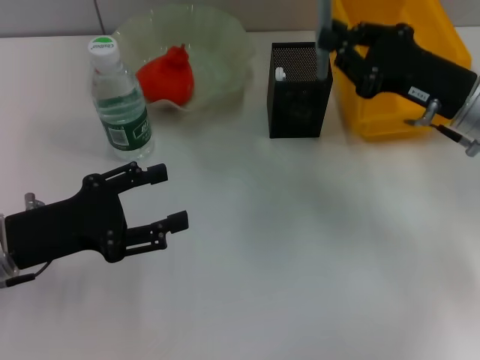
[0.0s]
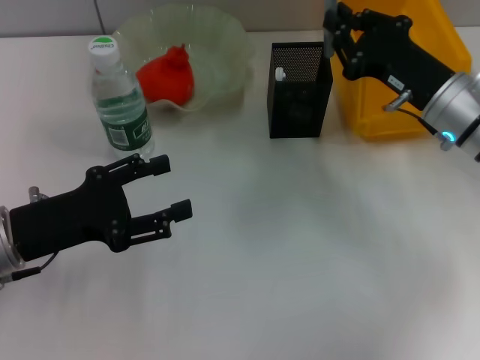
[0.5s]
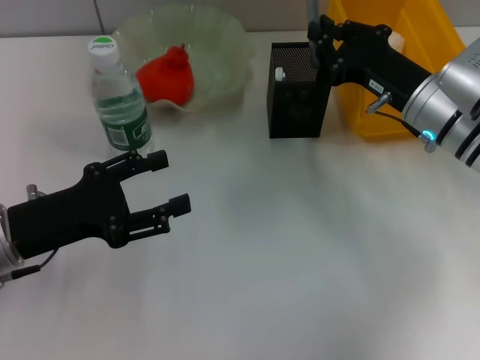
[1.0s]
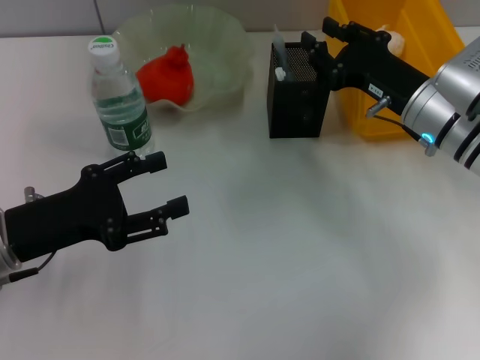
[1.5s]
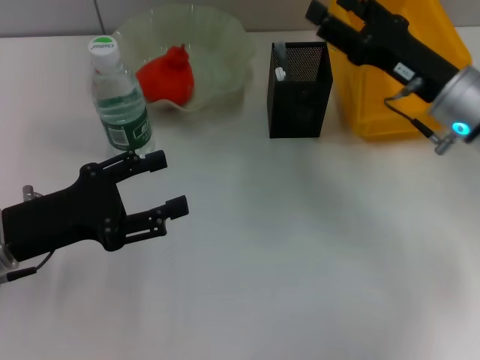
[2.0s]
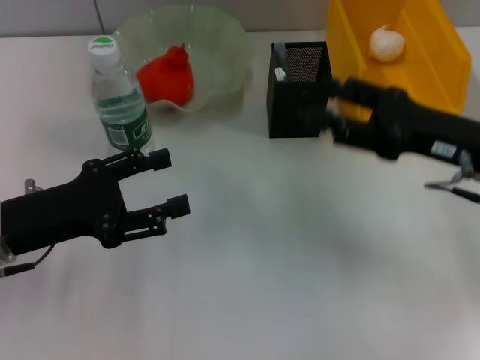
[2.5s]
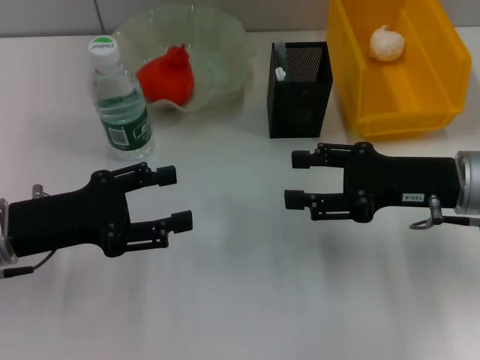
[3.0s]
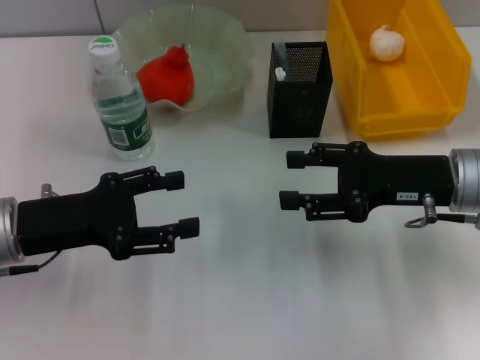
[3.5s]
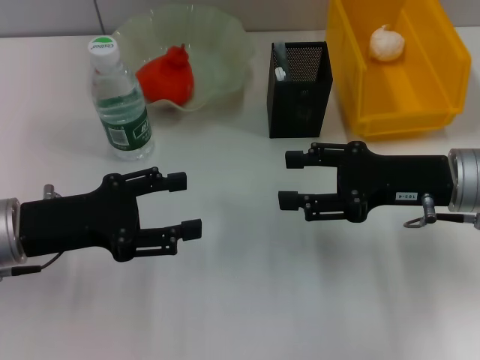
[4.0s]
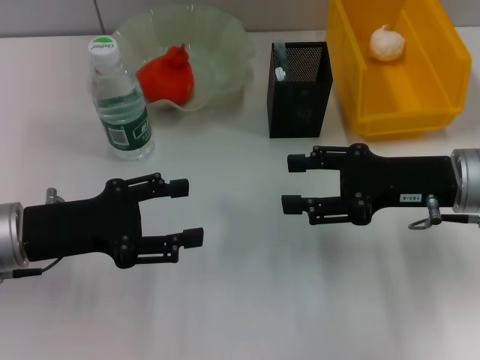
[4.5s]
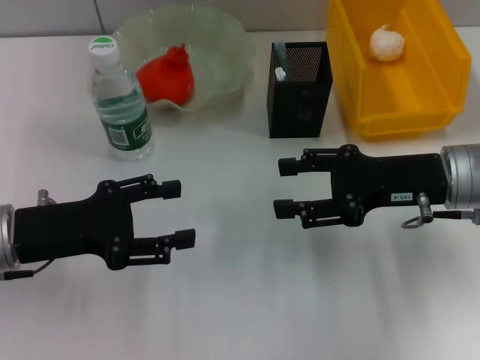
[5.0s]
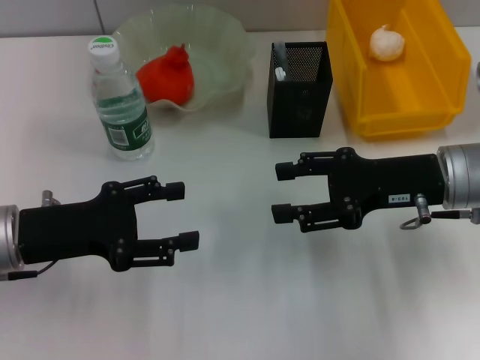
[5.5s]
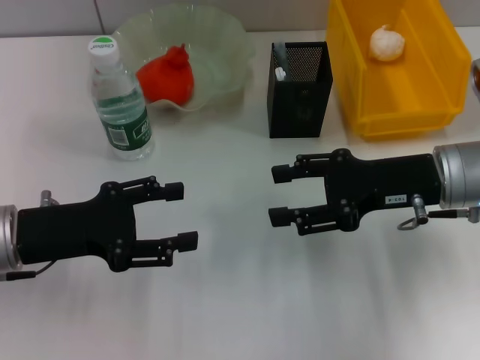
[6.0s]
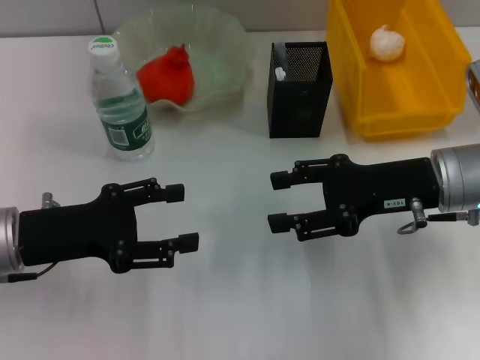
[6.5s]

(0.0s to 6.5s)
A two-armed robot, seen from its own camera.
0.0s - 2.0s: The right gripper opens.
4.5s - 6.5s: There are only small adjustments of the grippers.

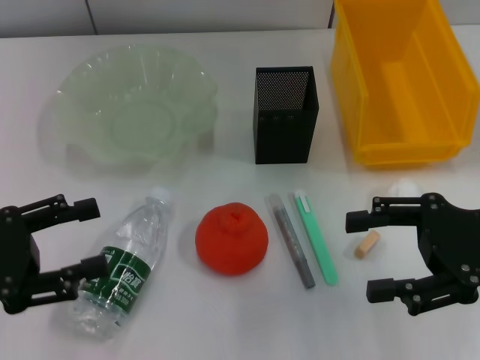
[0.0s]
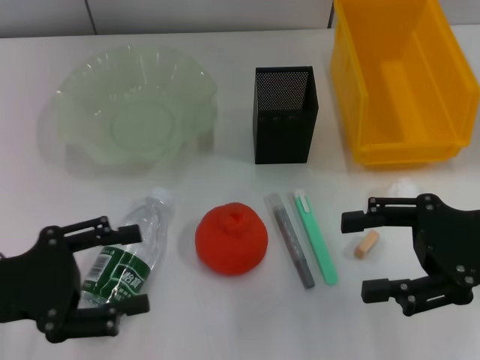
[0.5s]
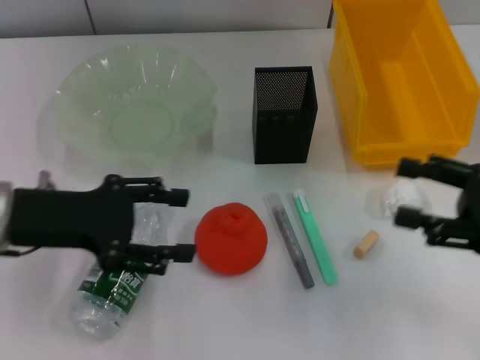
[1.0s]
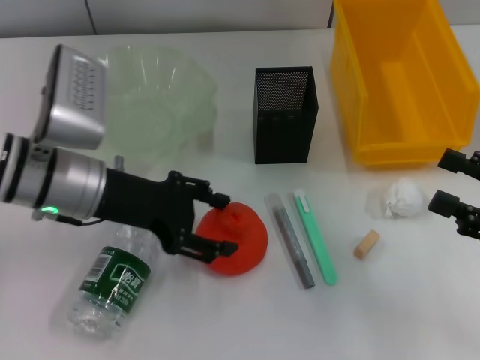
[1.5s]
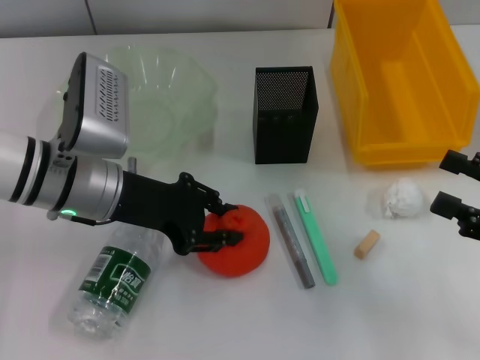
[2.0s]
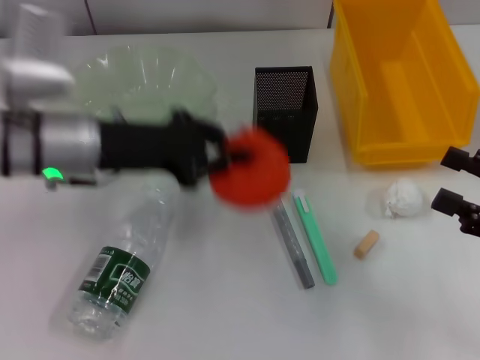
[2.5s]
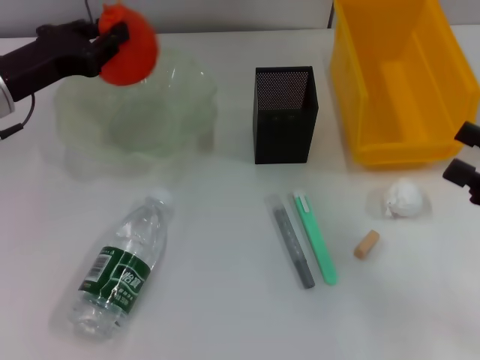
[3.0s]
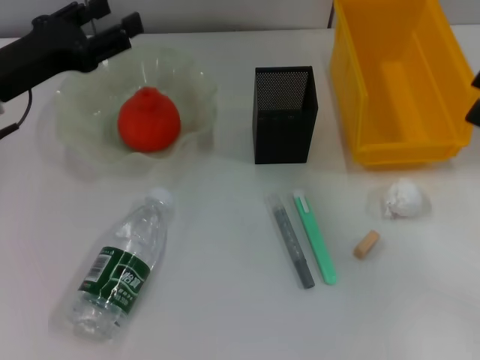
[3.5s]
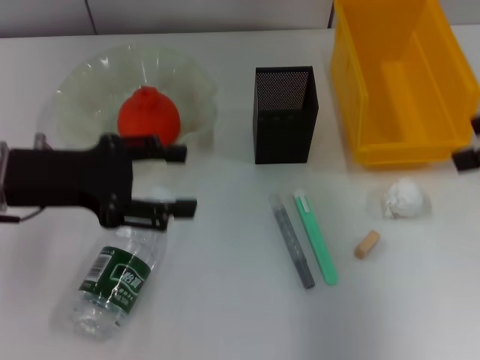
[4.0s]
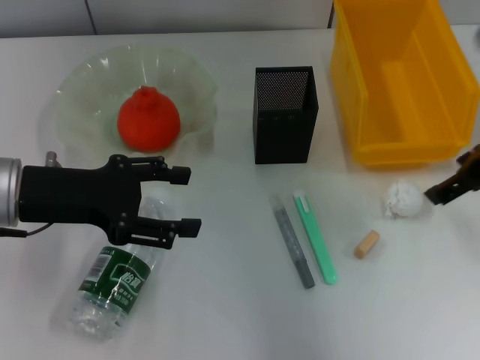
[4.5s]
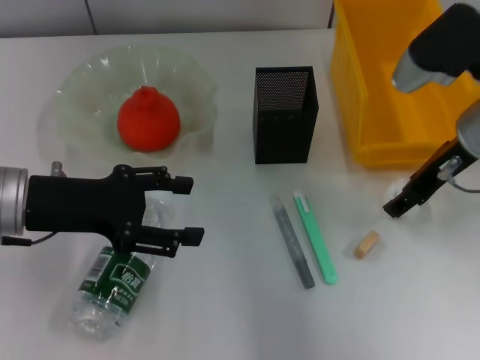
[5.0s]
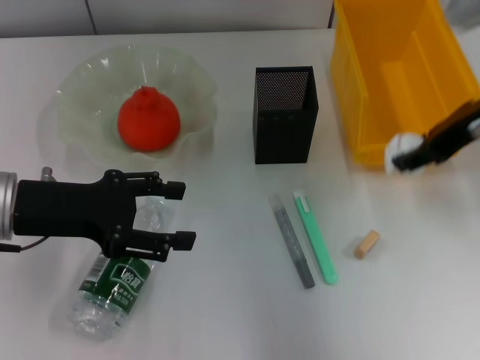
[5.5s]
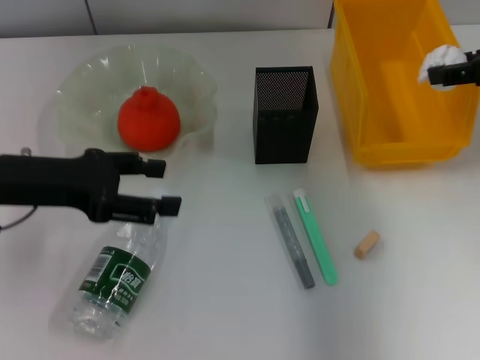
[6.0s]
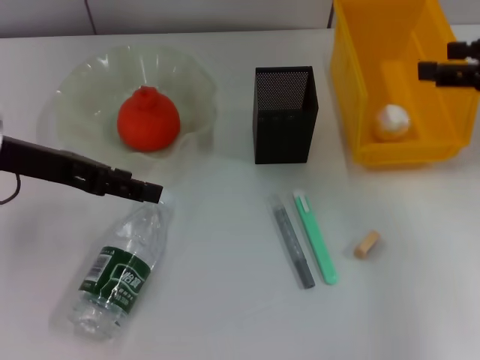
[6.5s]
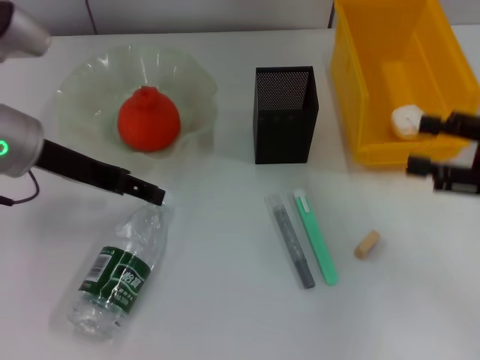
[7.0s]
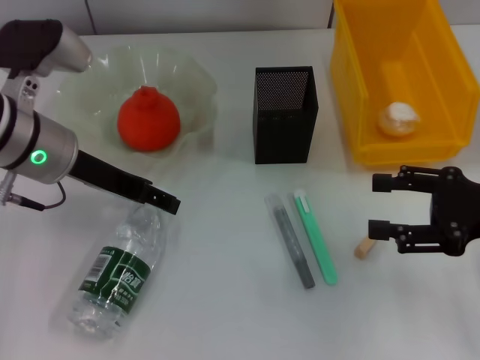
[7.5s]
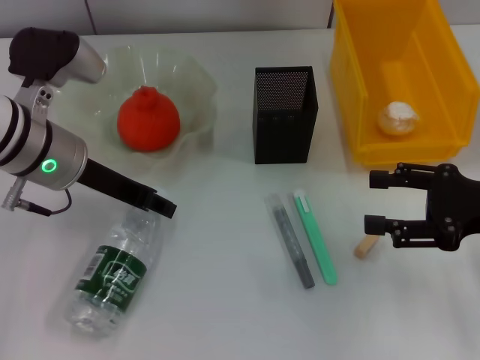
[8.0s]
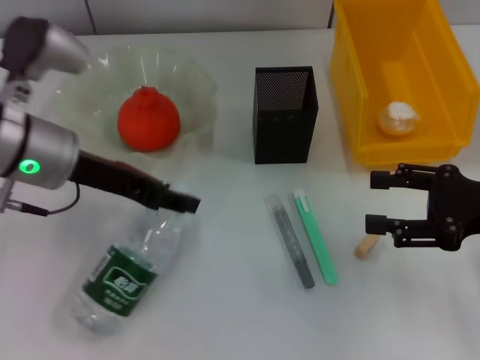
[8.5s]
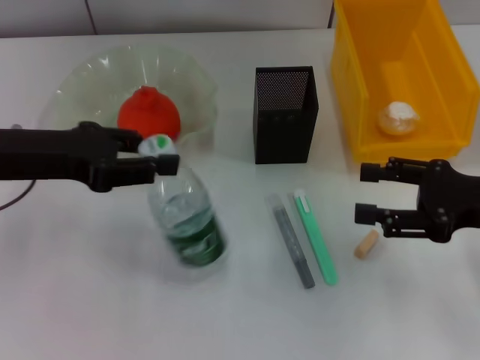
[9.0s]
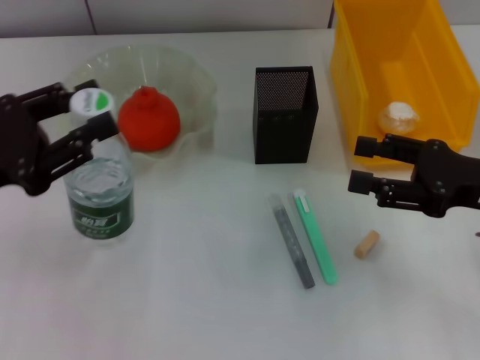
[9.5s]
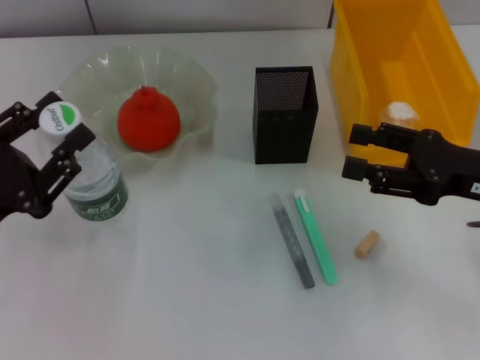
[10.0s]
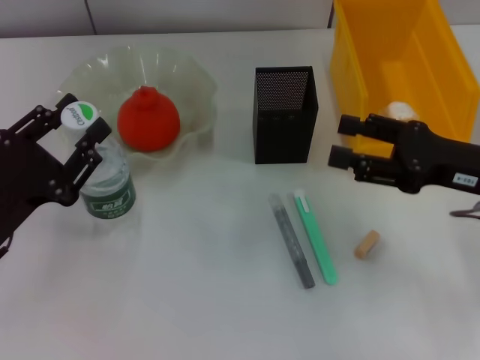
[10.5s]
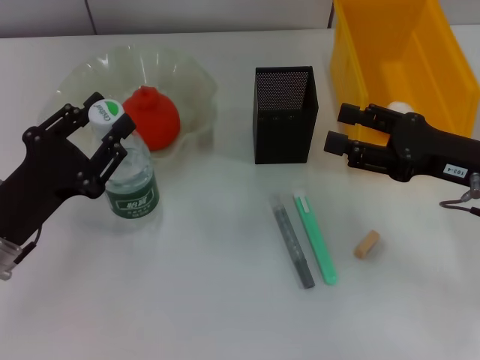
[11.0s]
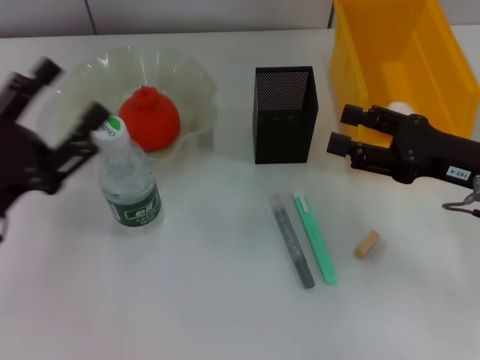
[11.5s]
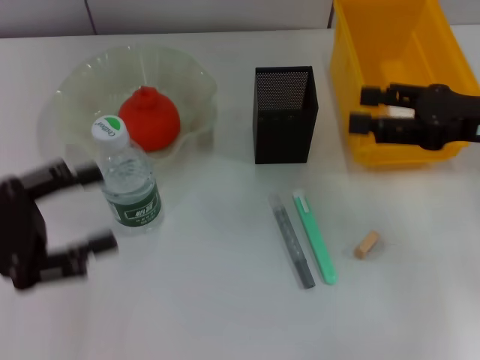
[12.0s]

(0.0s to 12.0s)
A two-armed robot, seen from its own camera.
Step, 0.0s - 2.0s: Grab the orange with the left hand.
Step, 2.5s - 3.5s: Place the orange into the fruit bowl with the left hand.
Step, 4.0s - 5.0s: Grab the paper ball with the right hand.
Step, 5.5s - 6.0s: Place the paper ball into the trash can with the right hand.
Step, 6.5s - 8.0s: Grab the water bottle with the left hand.
Step, 8.5s - 11.0s: Place the water bottle on the table with the left hand.
0.0s - 2.0s: The left gripper goes about 20 cm to the right and forward, and closes. Meanwhile the right gripper heads to the right, covering approximately 5 cm.
2.0s - 4.0s: The left gripper is displaced to the left by approximately 10 cm, and opens its fingers. The right gripper moves upward and forward, about 20 cm.
4.0s - 6.0s: The right gripper moves forward, about 5 cm.
6.0s - 8.0s: The left gripper heads to the right, covering some 5 cm. Meanwhile the right gripper travels downward and backward by approximately 15 cm.
8.0s - 10.0s: The left gripper shifts roughly 15 cm backward and to the left, and closes its fingers.
10.0s - 12.0s: The right gripper changes place by about 5 cm. The left gripper opens up.

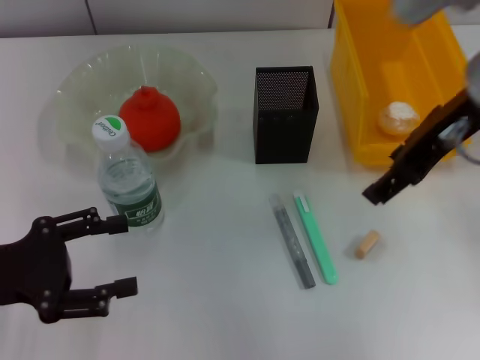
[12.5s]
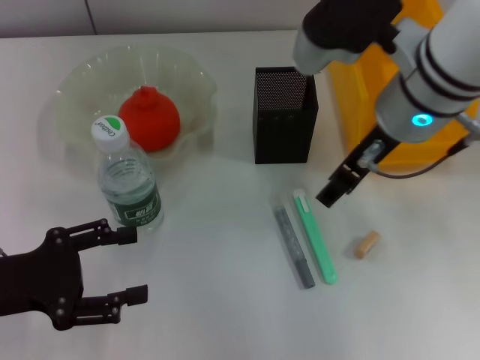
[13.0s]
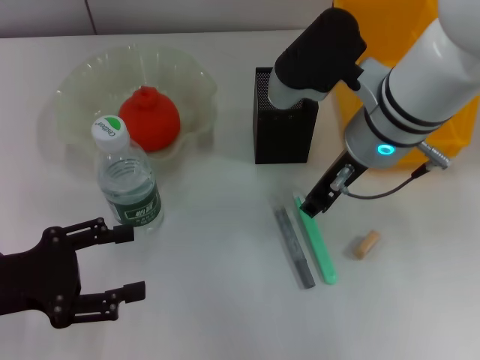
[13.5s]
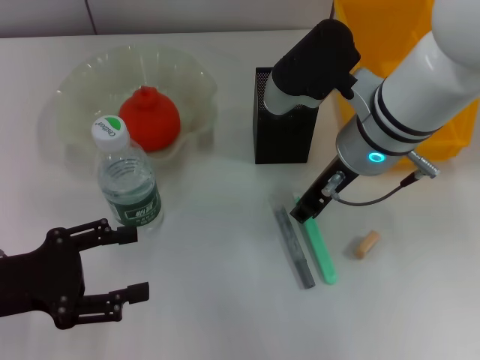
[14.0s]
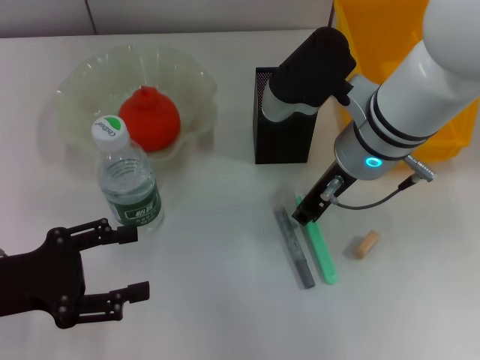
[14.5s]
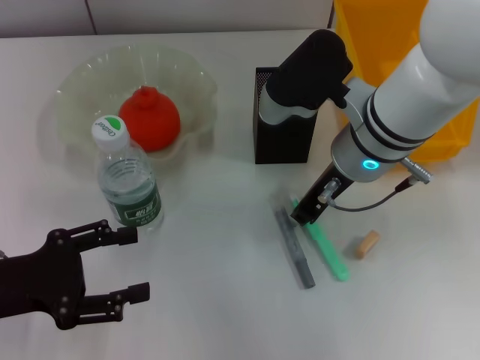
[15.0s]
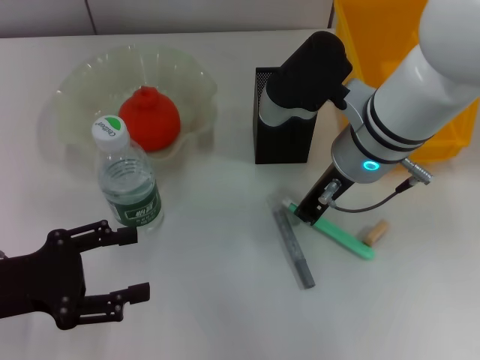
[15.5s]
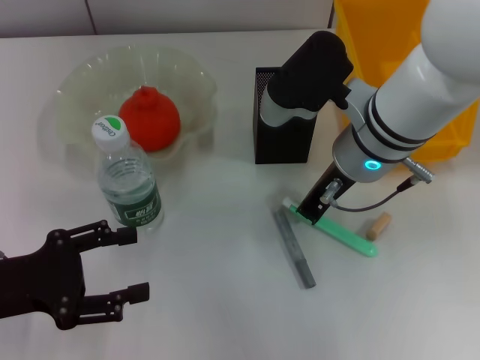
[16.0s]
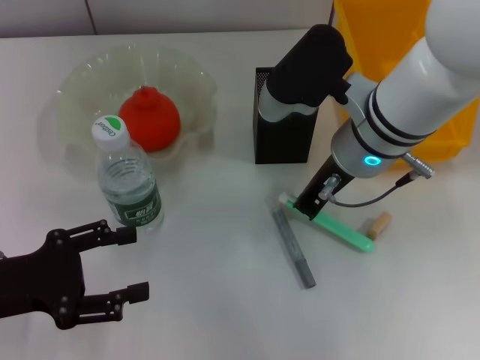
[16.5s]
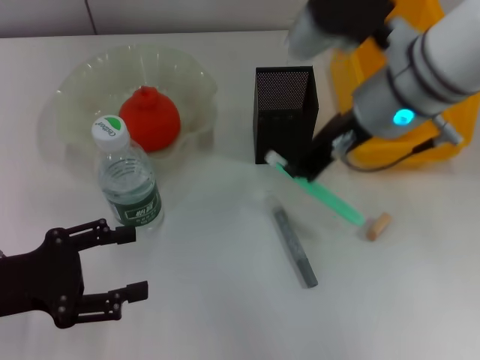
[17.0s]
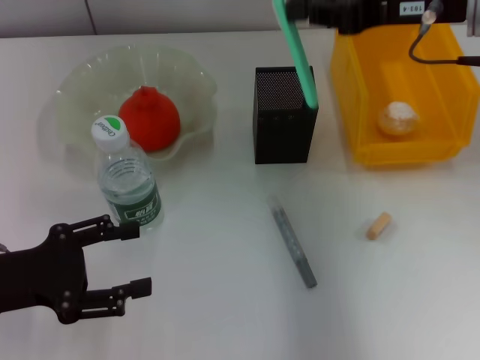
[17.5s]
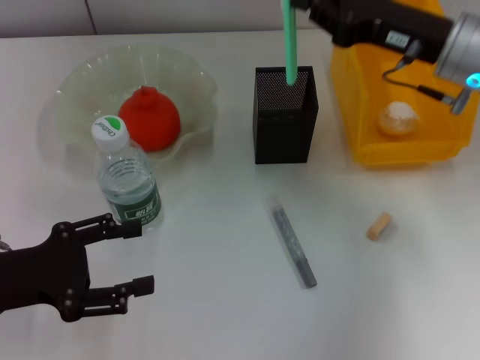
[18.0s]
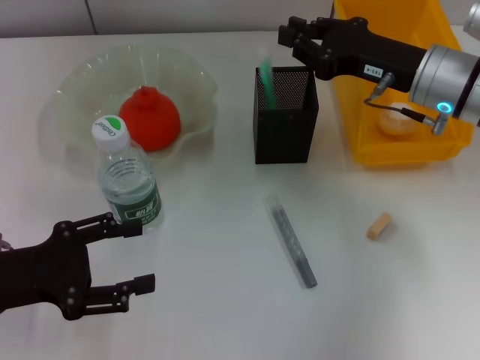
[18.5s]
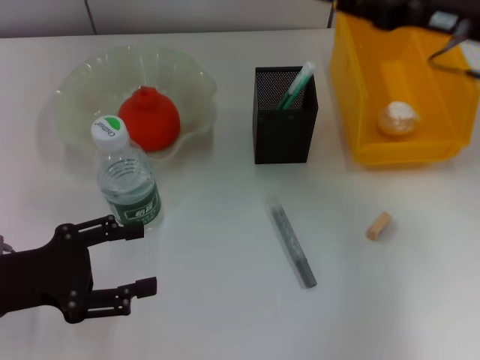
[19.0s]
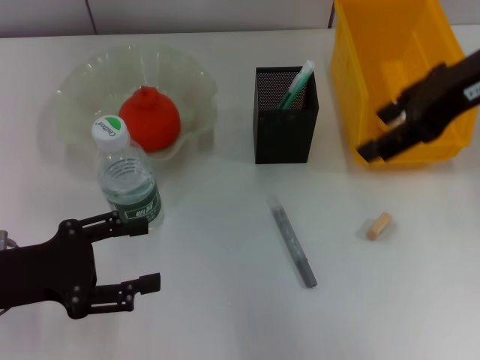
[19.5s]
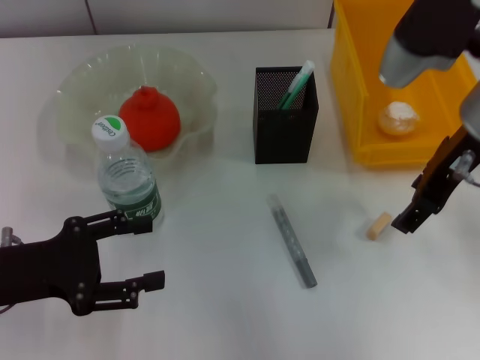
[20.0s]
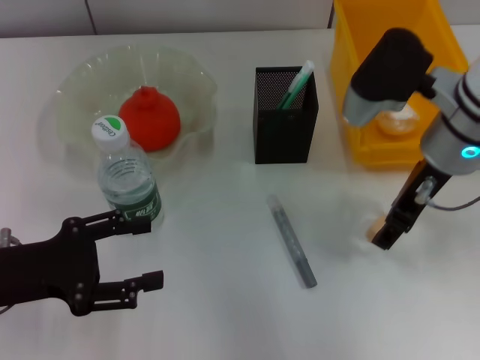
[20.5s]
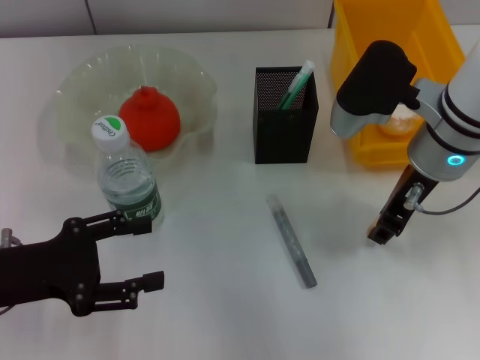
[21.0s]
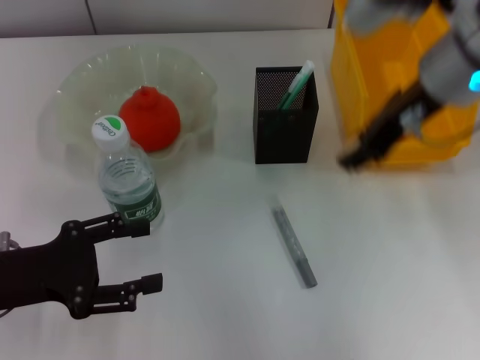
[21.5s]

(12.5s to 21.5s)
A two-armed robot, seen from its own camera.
Step, 12.5s - 16.0s: Grab the blue utility knife with the right hand.
Step, 16.5s - 18.0s: Place the blue utility knife into the pen holder with the right hand.
Step, 18.5s - 20.5s: Grab the eraser with the right hand.
12.5s - 14.5s: The right gripper moves downward and to the left, approximately 10 cm, and closes its fingers.
14.5s - 17.0s: The right gripper heads upward, covering some 5 cm, and closes.
17.0s - 19.5s: The right gripper moves to the right and upward, about 10 cm, and opens up.
19.5s - 21.5s: The right gripper moves to the left, roughly 5 cm, moves some 10 cm downward and comes back, and closes.
